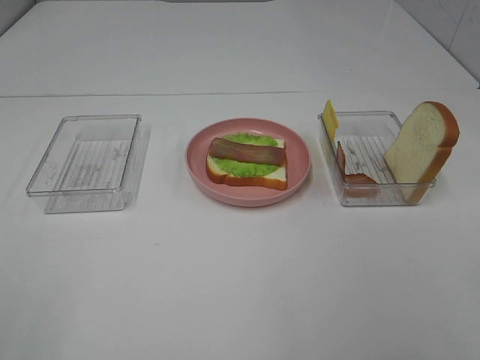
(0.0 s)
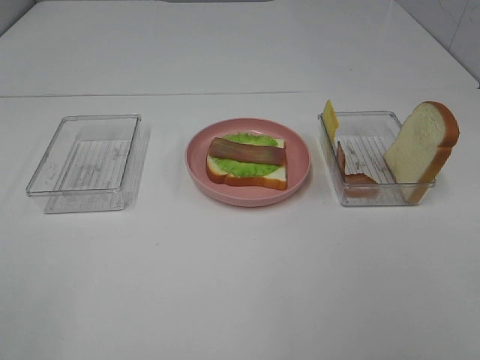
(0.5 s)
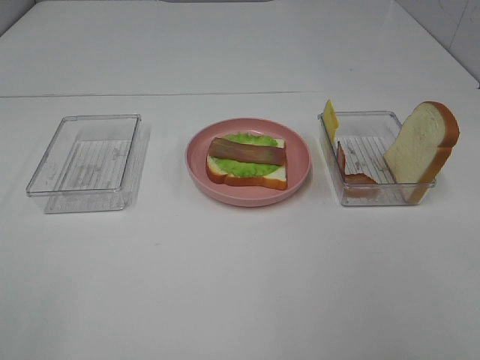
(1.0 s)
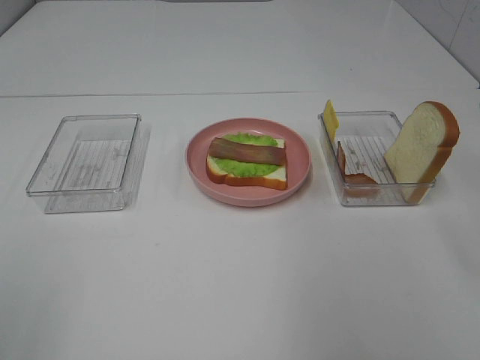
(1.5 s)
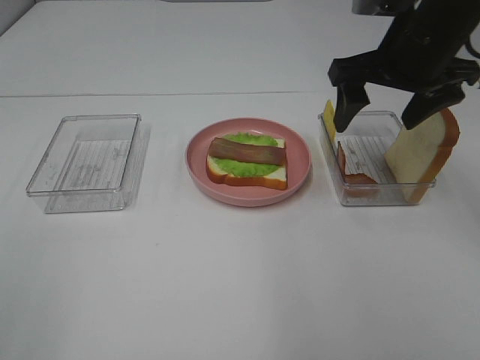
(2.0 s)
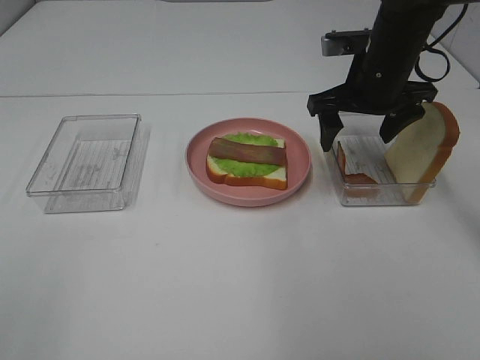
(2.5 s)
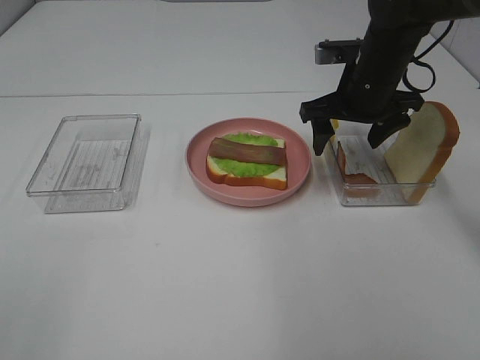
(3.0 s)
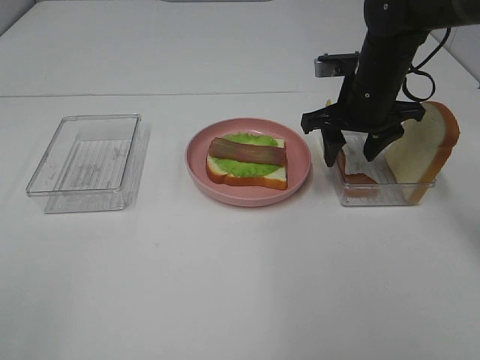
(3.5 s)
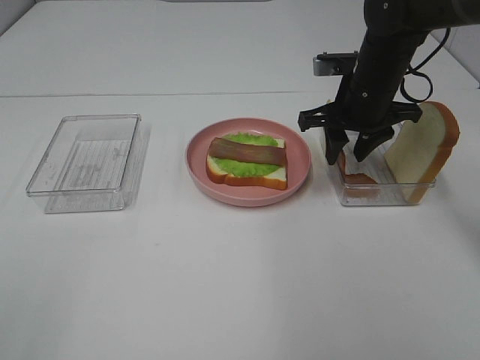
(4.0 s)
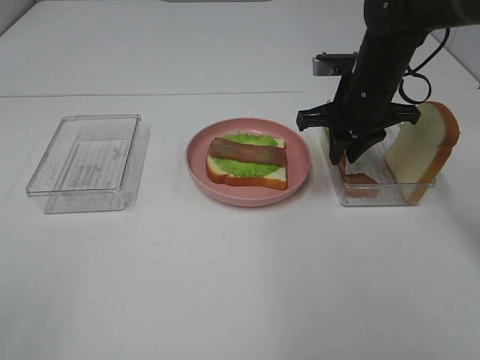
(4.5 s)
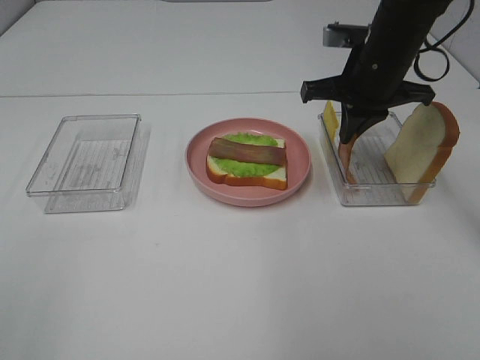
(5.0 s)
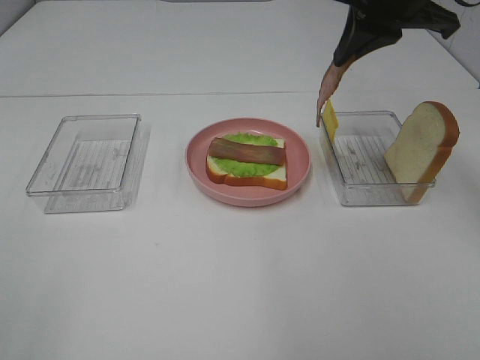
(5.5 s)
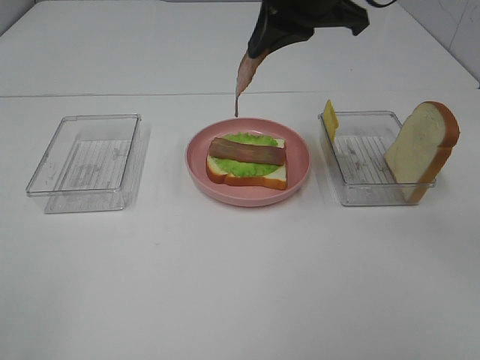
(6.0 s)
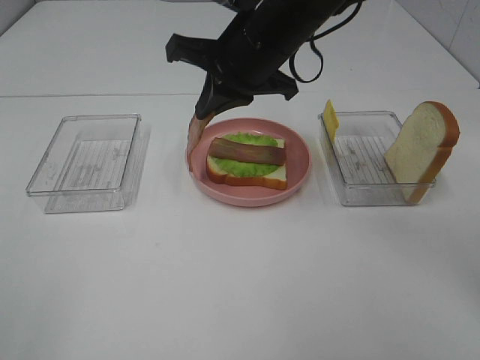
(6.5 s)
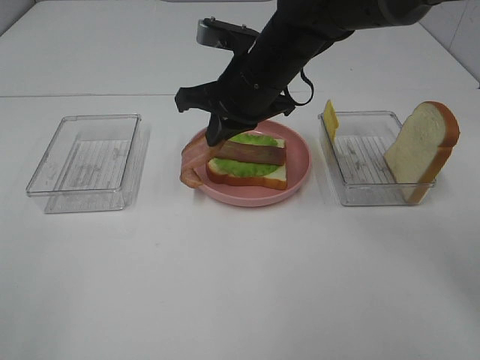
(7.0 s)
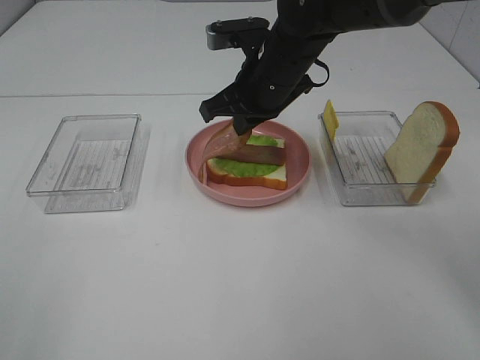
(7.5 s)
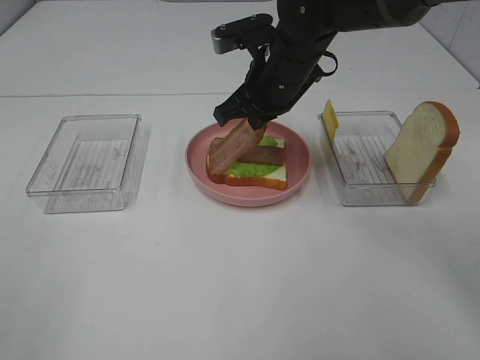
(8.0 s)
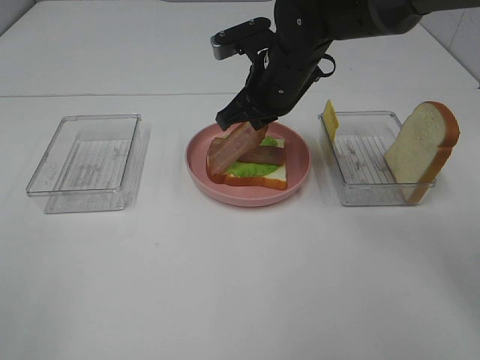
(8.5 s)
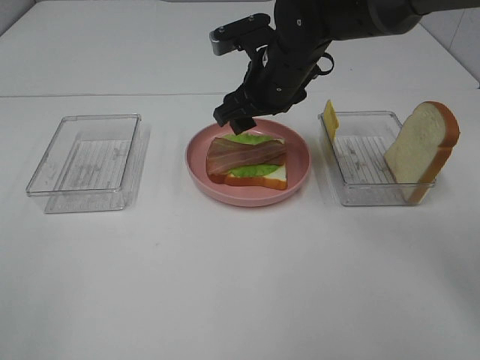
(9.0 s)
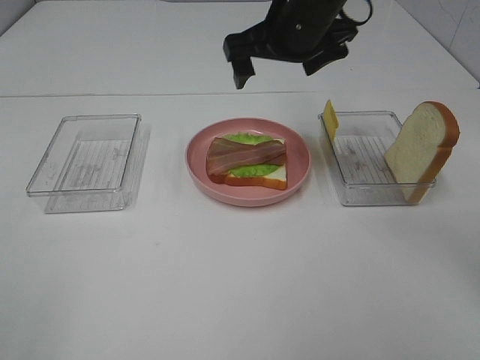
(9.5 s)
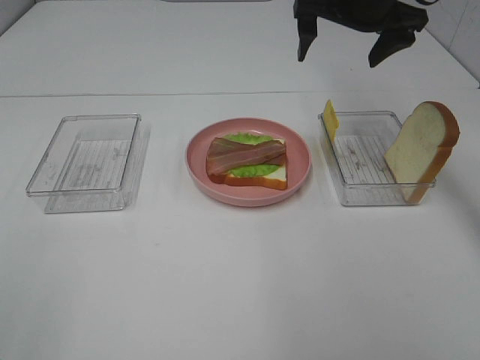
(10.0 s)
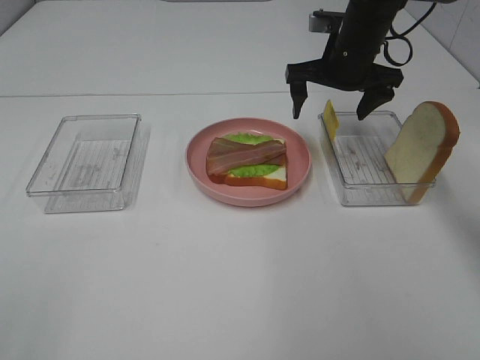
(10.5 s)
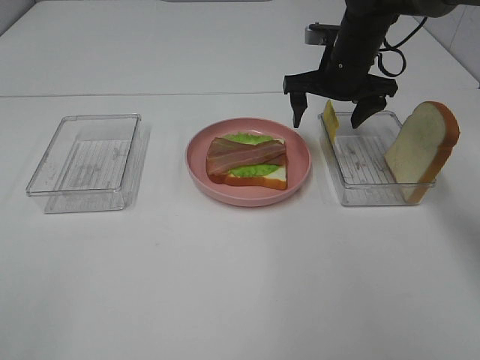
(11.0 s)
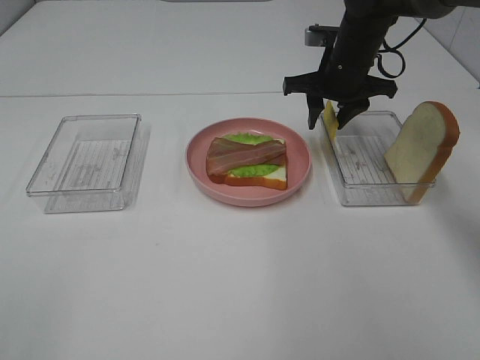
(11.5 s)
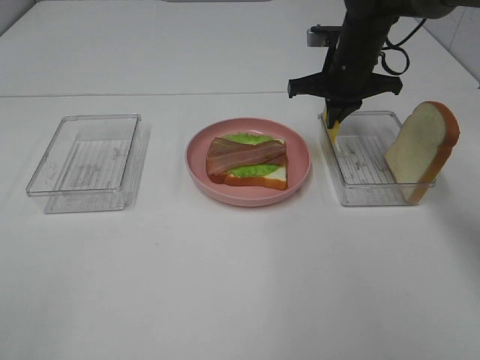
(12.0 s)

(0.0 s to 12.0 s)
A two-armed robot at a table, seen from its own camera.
Task of the whole recording: Make sandwiches.
Step, 0.0 s - 4.5 s: Right hand:grab the bacon.
Step, 5.0 s - 9.0 s: Right hand:place bacon on bacon.
Step, 9.5 s - 11.5 s: Right hand:grab the cheese slice.
0.0 s - 2.0 s: The right gripper goes roughly 35 cm forward.
2.0 s - 4.0 s: The right gripper heads downward and forward, covering some 10 cm, and closes up.
4.0 s - 6.0 s: The right gripper shifts some 20 cm upward, to the left and backward, and closes.
6.0 s - 8.0 s: The right gripper heads downward, covering about 15 cm.
8.0 s - 10.0 s: The right gripper heads to the right, upward and forward, covering roughly 15 cm, and opens.
10.0 s - 12.0 s: The right gripper travels downward by about 10 cm, and closes.

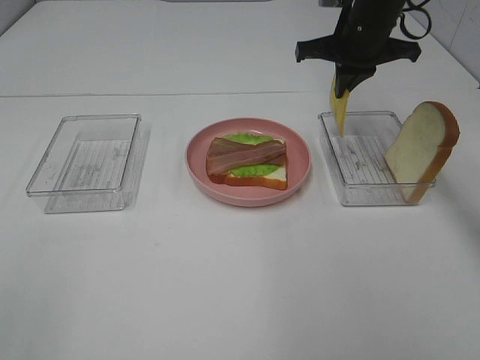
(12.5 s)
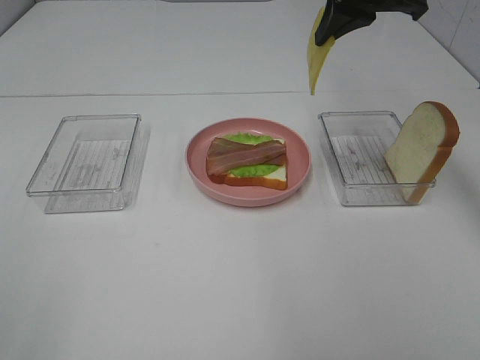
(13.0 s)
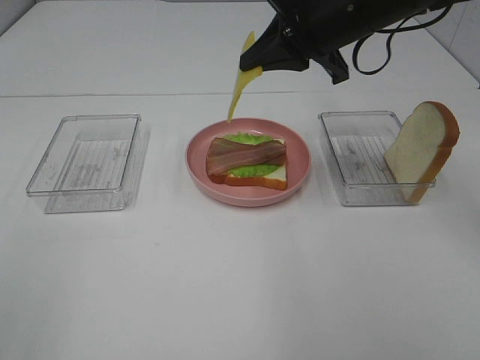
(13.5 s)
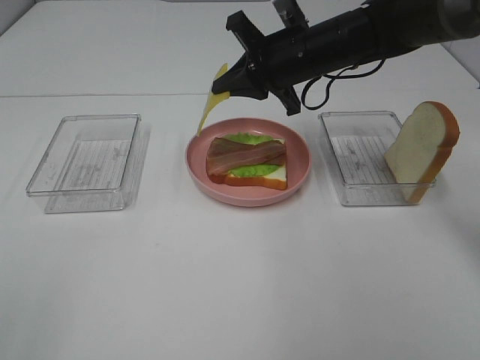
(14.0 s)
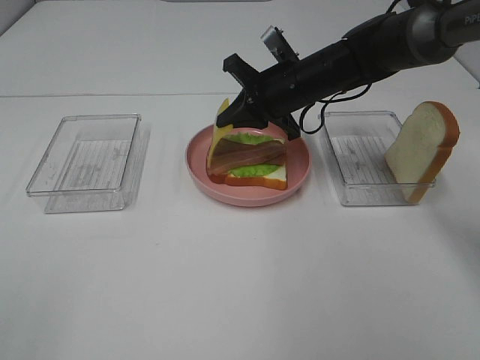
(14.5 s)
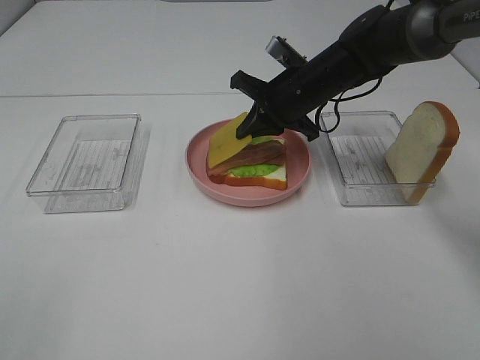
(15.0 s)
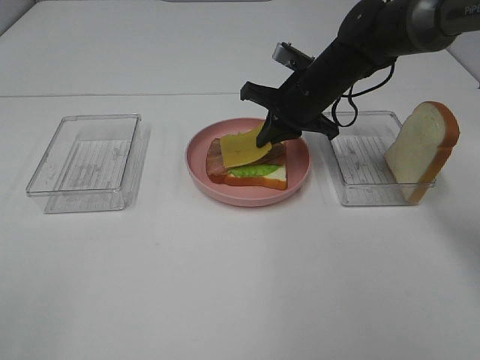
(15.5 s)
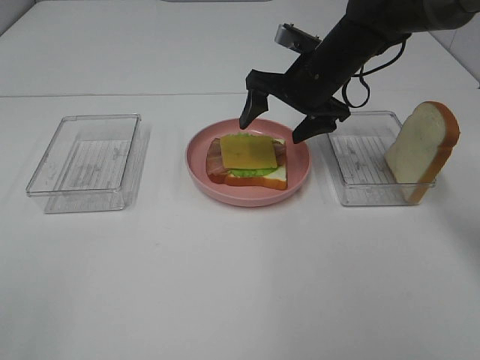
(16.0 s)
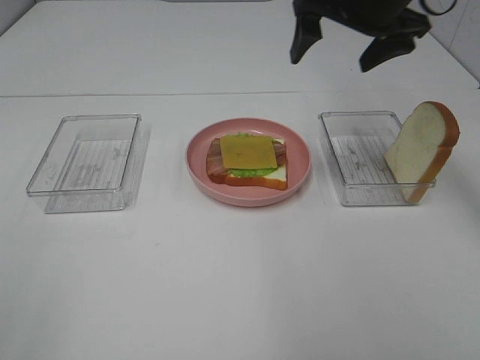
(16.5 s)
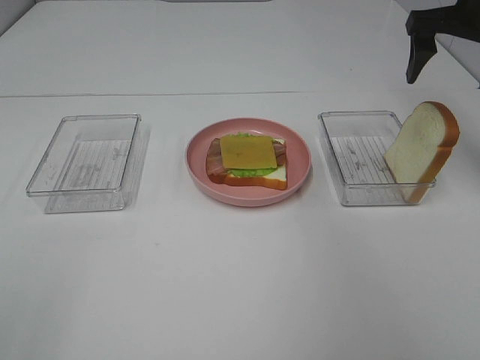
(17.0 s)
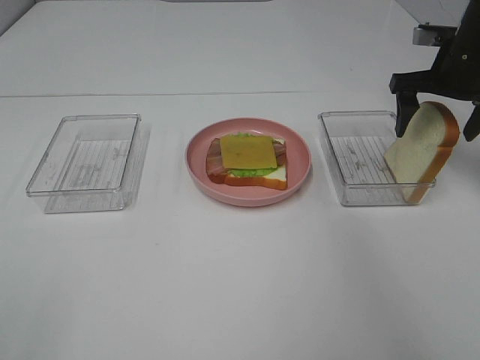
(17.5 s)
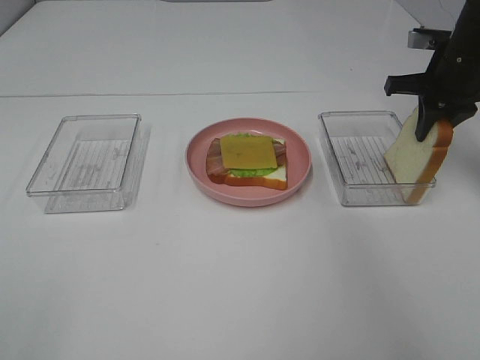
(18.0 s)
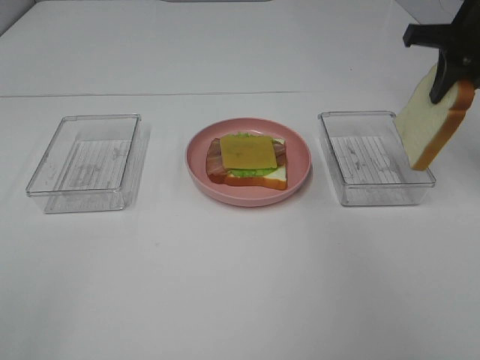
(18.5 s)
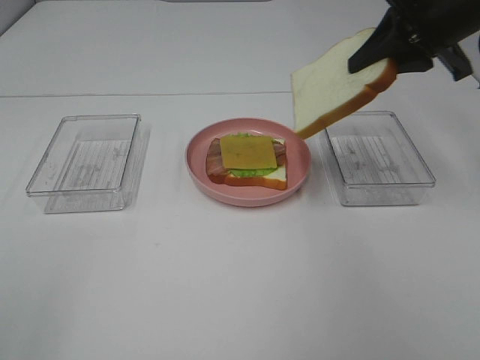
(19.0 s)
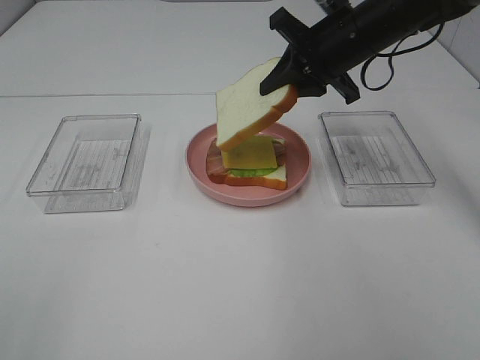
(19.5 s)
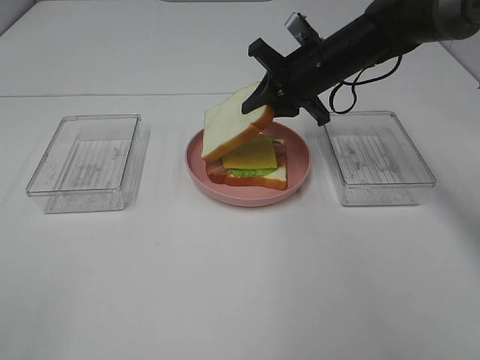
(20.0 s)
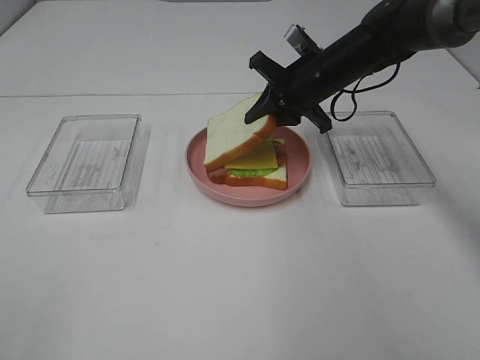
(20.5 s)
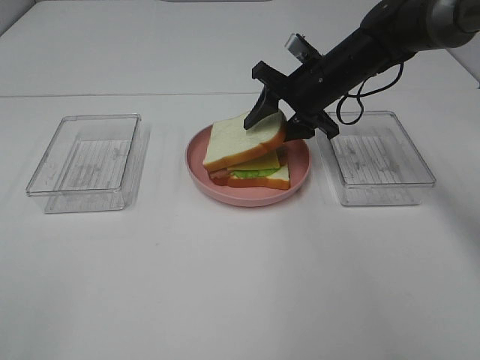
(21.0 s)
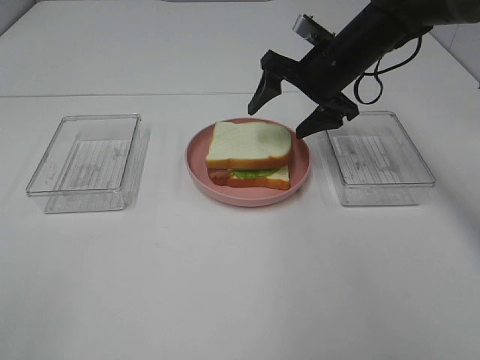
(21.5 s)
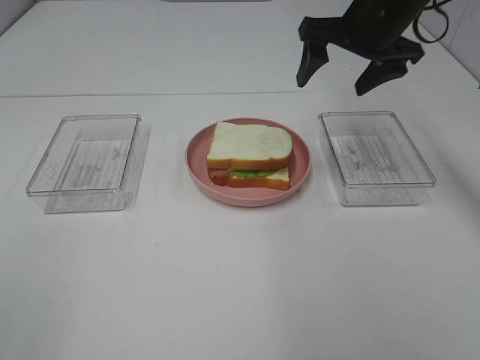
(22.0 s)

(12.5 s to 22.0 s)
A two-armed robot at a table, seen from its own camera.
Task of the whole recording: Make sandwiches.
Step, 12.5 s - 15.5 s: Right hand:place the cheese slice on top of the bacon.
Step, 16.0 s - 18.0 s: Right hand:grab the bread slice.
Step, 18.5 s - 21.5 s: Right hand:place the bread slice on the cheese slice.
12.5 s - 14.5 s: The right gripper travels downward and to the left by roughly 10 cm.
14.5 s - 16.5 s: The right gripper moves upward and to the right, some 15 cm, and opens.
16.5 s - 18.0 s: The right gripper goes some 15 cm to the right and downward, and closes up.
18.0 s - 20.0 s: The right gripper shifts some 15 cm to the left.
20.0 s - 22.0 s: The right gripper goes roughly 10 cm upward, and opens.

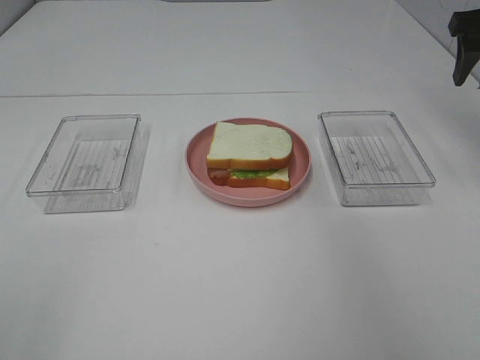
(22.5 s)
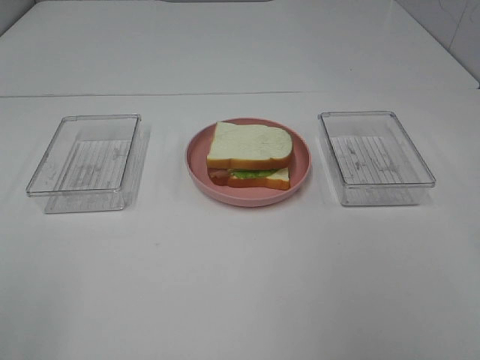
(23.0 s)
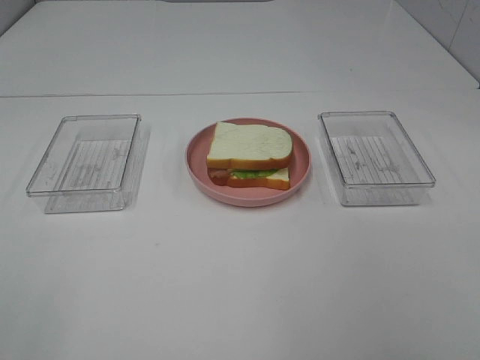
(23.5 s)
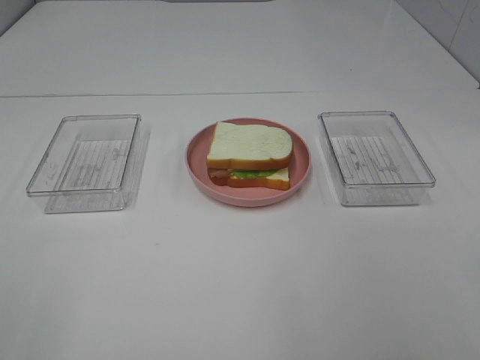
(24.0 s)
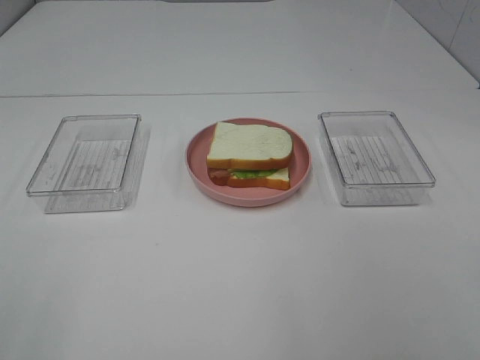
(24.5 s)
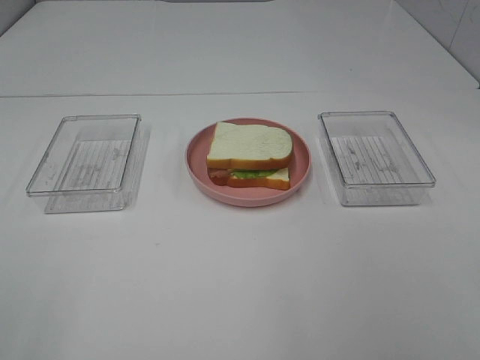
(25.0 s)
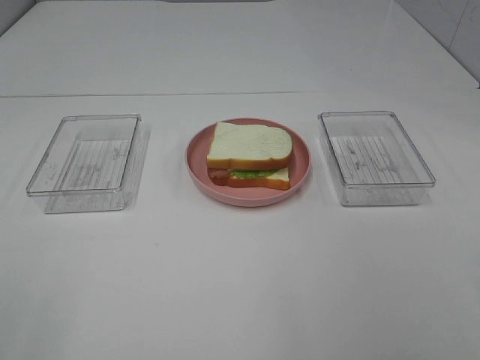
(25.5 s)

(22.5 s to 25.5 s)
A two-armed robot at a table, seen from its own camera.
Task of the whole recording: Make sandwiches.
22.5 s - 24.0 s: The right gripper moves backward, roughly 40 cm.
24.0 s - 25.5 s: Both grippers stay put.
